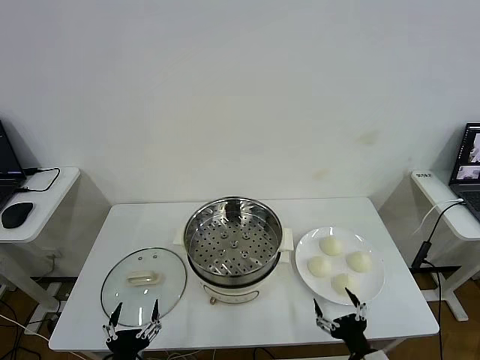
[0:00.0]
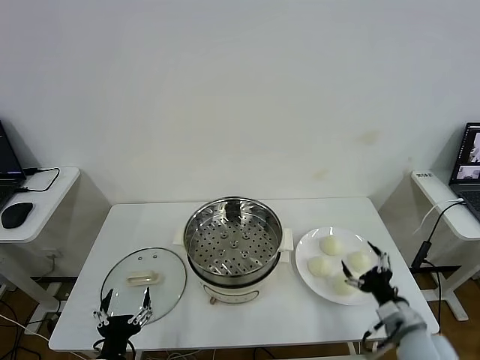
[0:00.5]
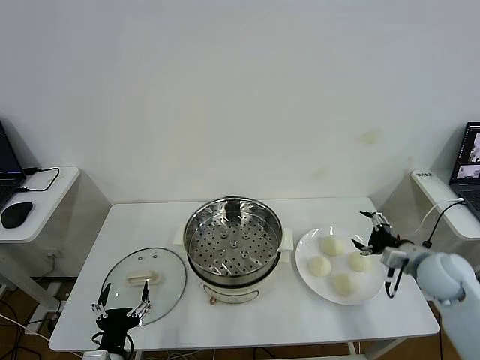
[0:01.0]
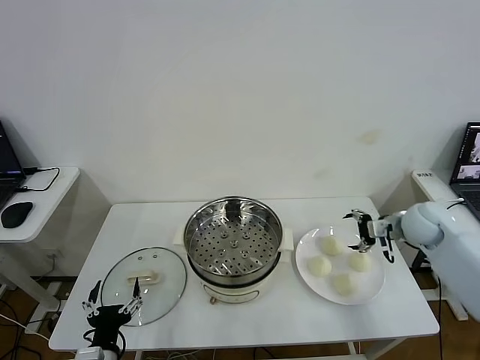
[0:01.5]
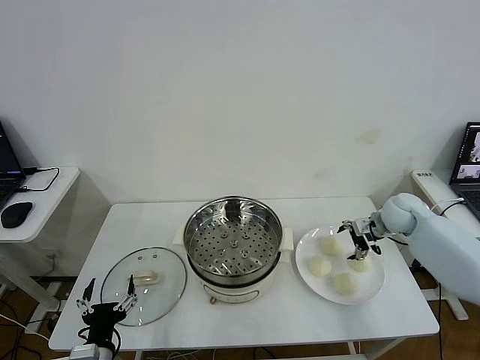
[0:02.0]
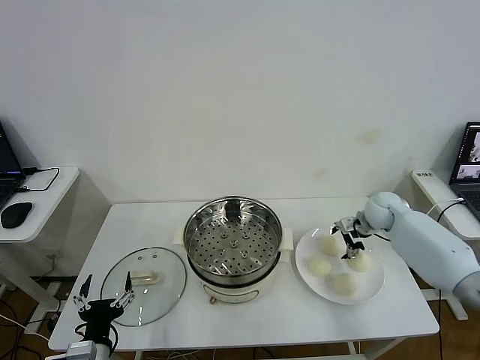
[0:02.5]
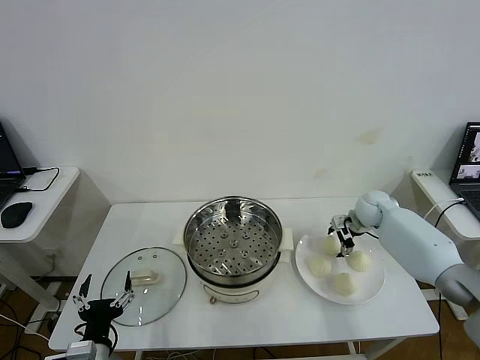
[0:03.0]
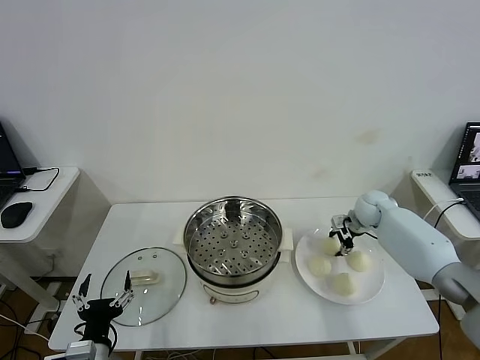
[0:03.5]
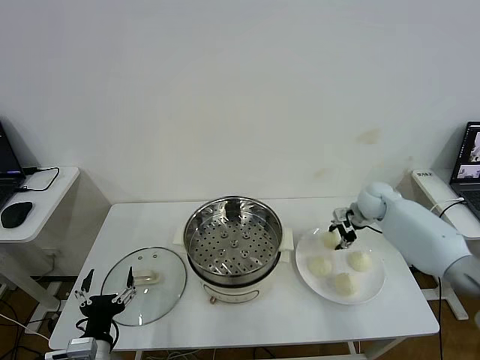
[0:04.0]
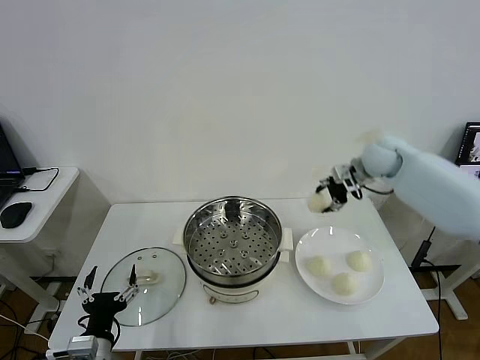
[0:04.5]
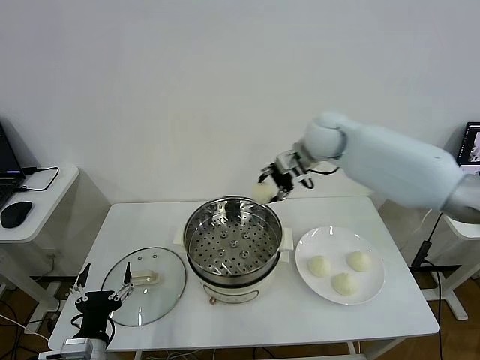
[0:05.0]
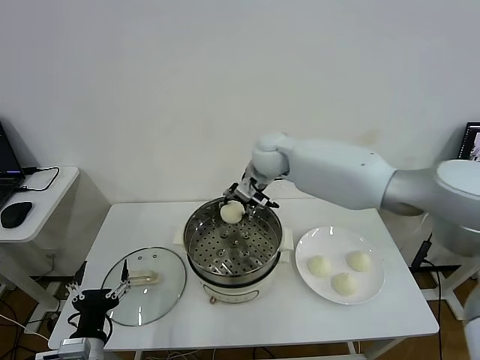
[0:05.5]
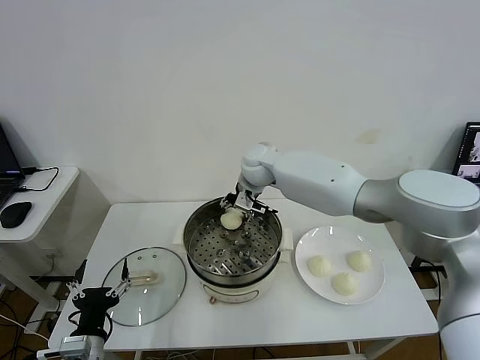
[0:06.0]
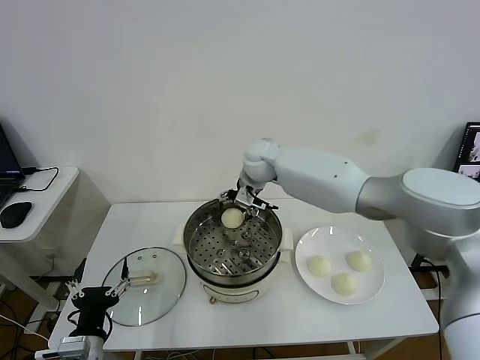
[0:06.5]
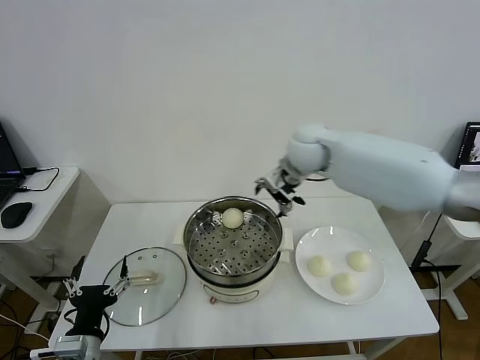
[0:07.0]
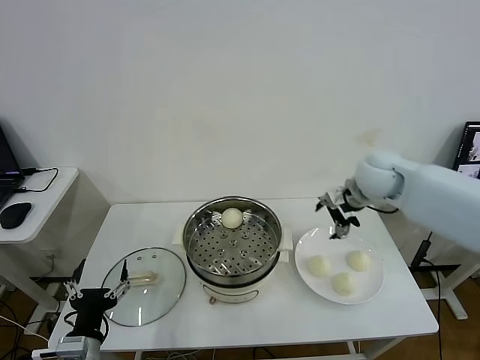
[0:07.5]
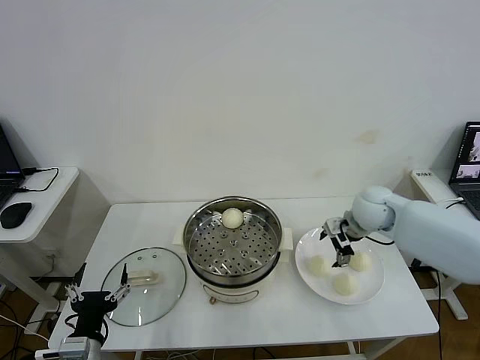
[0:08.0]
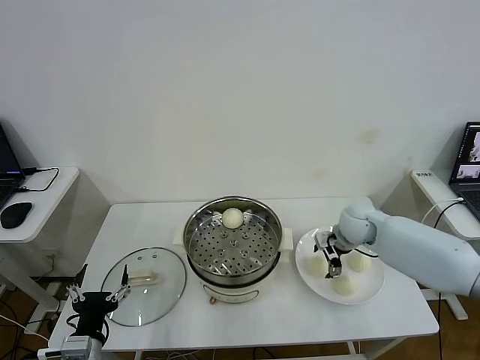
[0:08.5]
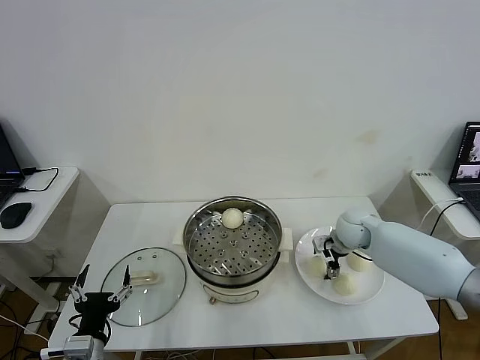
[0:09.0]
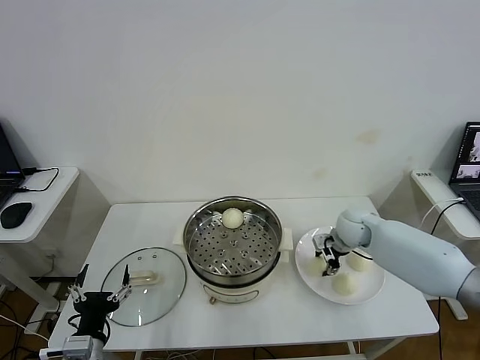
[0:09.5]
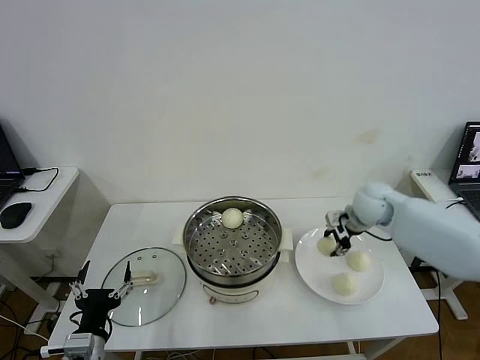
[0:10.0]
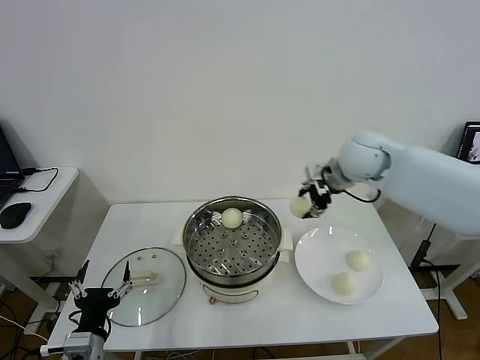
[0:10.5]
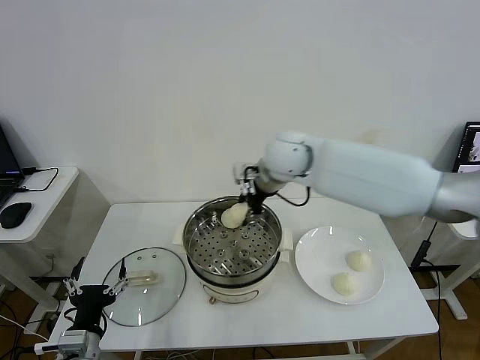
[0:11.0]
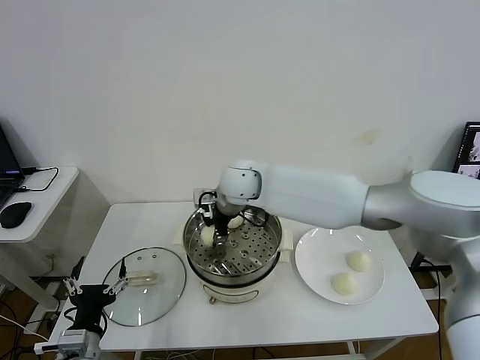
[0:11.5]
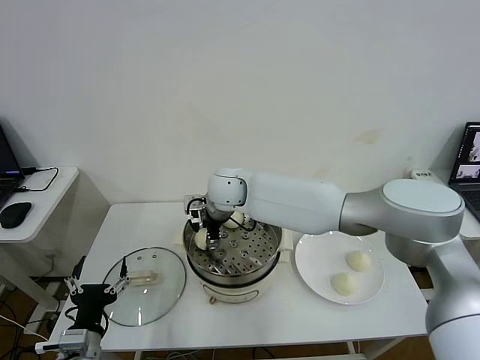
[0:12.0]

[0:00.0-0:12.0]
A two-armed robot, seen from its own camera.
Step, 0.0 to 3.0 s: Grasp the baozi in the plate with right gripper.
Step, 3.5 to 6.0 s: Place the baozi on the steamer with right gripper.
Step, 6.5 to 9.0 s: Grasp the baozi in the plate with right gripper.
2.0 to 4.0 s: The right gripper changes place by some 5 cm, and closes.
4.0 to 6.0 s: The right gripper travels to the left by roughly 30 cm.
6.0 to 8.0 s: The right gripper goes some 25 cm to the right, and opens up.
8.0 to 10.0 s: The right gripper goes downward and returns, roughly 5 cm each way, and closes up.
10.0 to 12.0 s: The right gripper shifts some 35 cm to the left, and opens.

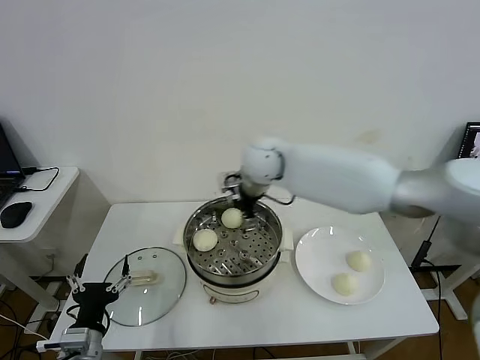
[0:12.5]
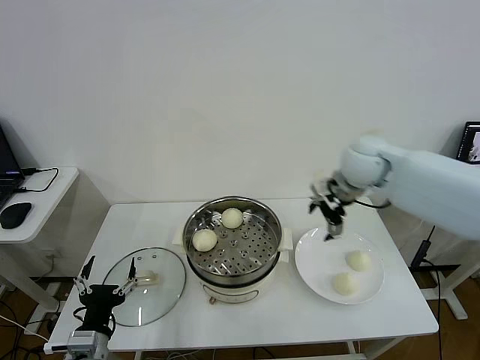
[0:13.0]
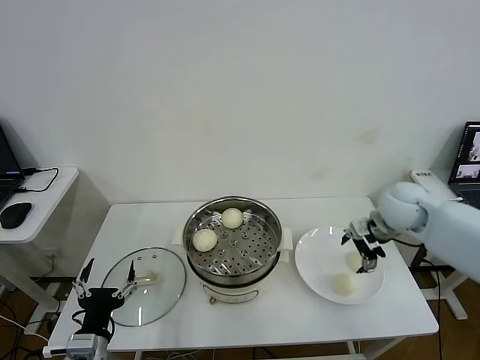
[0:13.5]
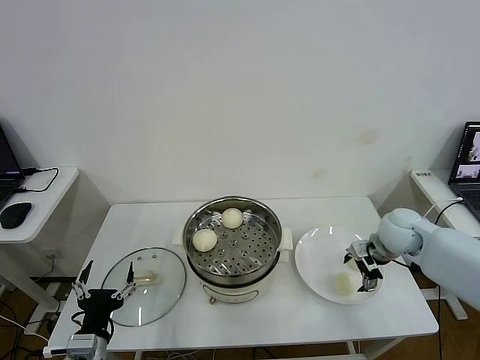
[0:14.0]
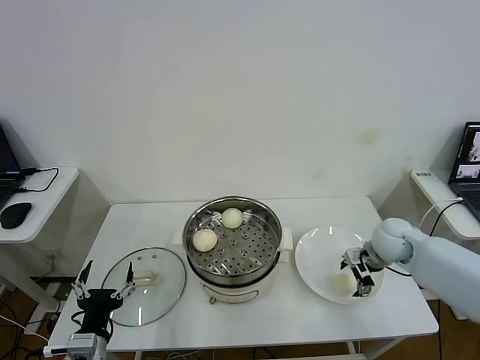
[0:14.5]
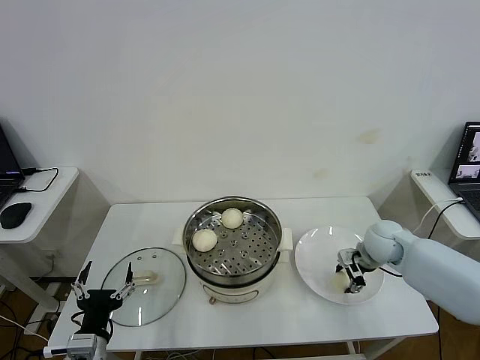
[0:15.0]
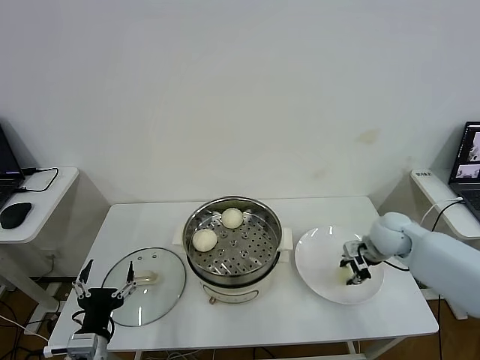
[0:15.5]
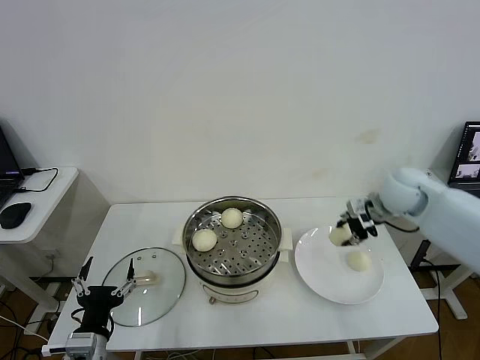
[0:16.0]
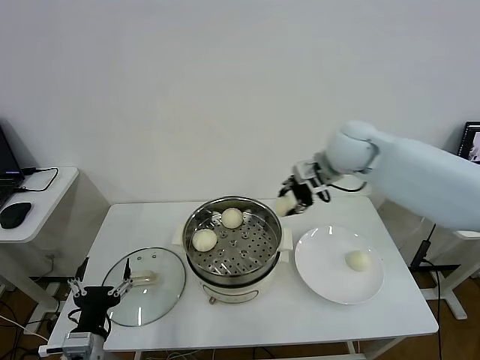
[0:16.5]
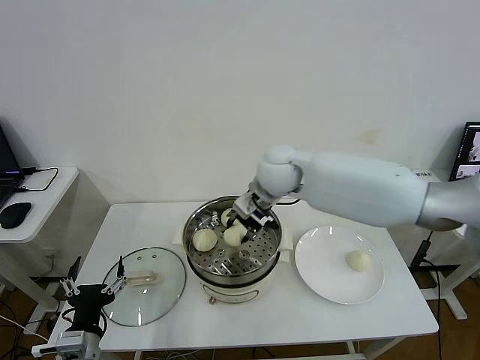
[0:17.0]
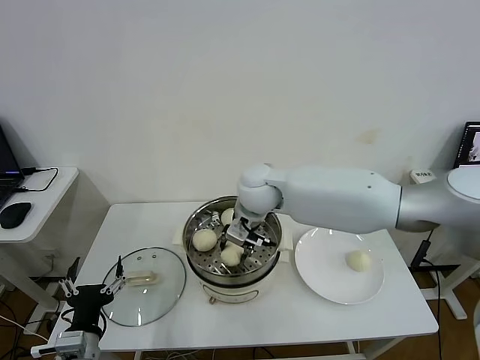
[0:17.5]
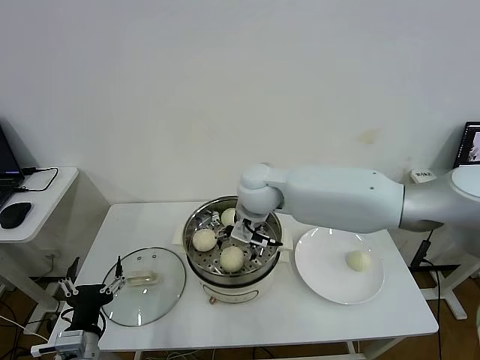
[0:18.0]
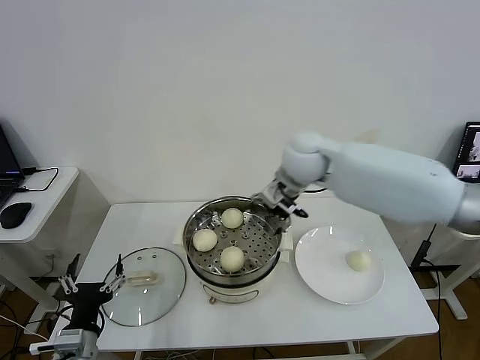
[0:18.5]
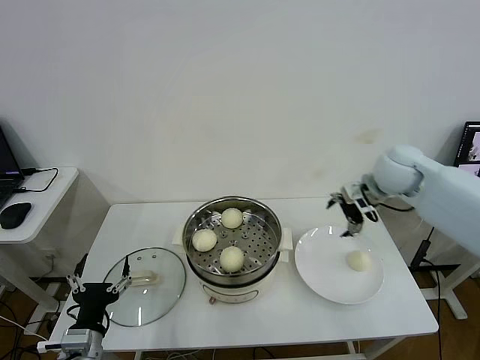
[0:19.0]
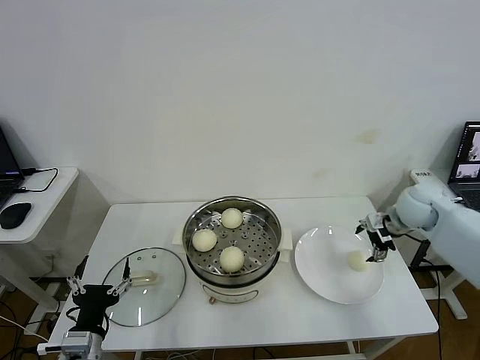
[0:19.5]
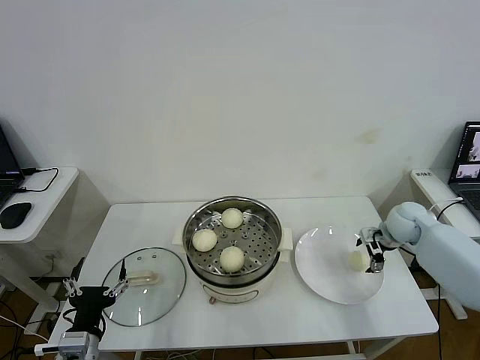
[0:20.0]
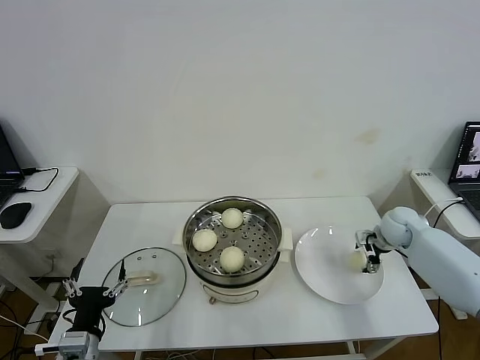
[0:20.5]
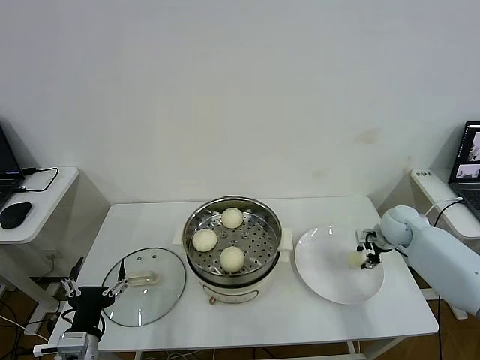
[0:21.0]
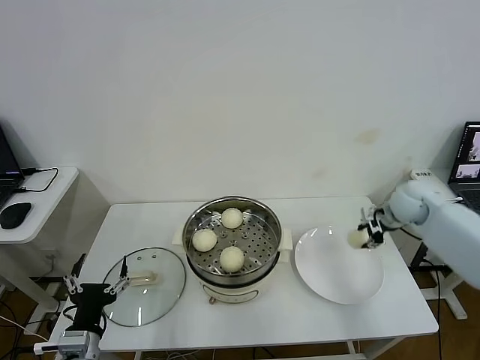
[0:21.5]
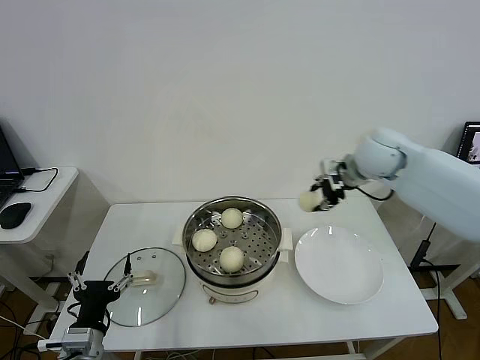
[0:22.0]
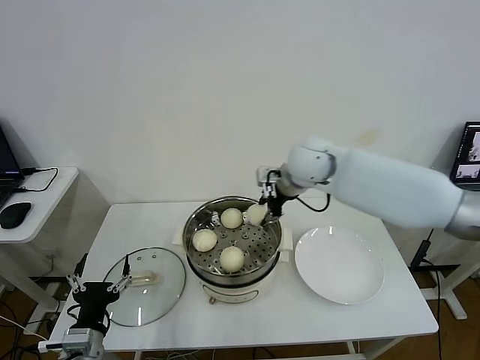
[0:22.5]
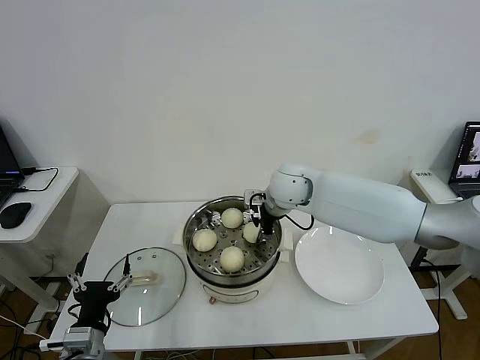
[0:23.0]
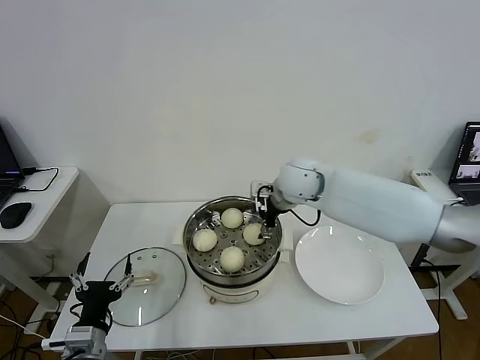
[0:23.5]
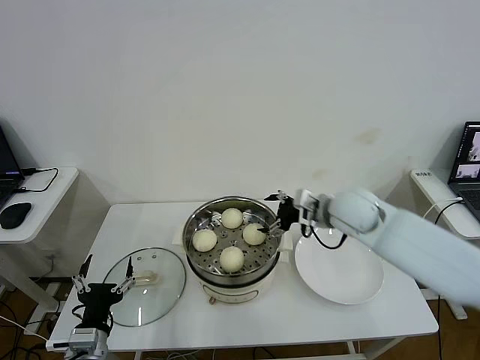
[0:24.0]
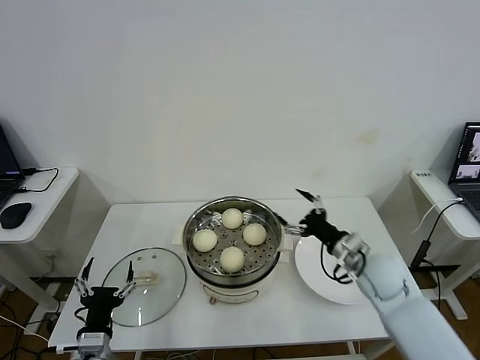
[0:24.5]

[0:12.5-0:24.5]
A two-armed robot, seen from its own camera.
Step, 12.5 to 15.0 s: Grasp the baozi in the plate with right gripper.
Step, 15.5 to 17.5 s: Place the baozi on the steamer with right gripper.
Step, 18.0 to 20.5 s: Grasp the baozi in the plate with right gripper.
Step, 21.0 to 23.0 s: Place the baozi on the steamer with right gripper.
12.5 to 14.5 s: The right gripper moves to the right and downward, some 35 cm.
14.5 to 16.5 s: The right gripper is displaced upward and to the left by some 25 cm, and closes its fingers.
16.5 to 18.5 s: The right gripper goes to the left and returns, approximately 15 cm each way, and opens its fingers.
18.5 to 20.5 s: The right gripper is displaced to the right and downward by roughly 35 cm.
20.5 to 22.5 s: The right gripper travels to the left and upward by about 35 cm, and closes.
22.5 to 24.5 s: The right gripper is displaced downward, to the right and backward by roughly 30 cm, and opens its fingers.

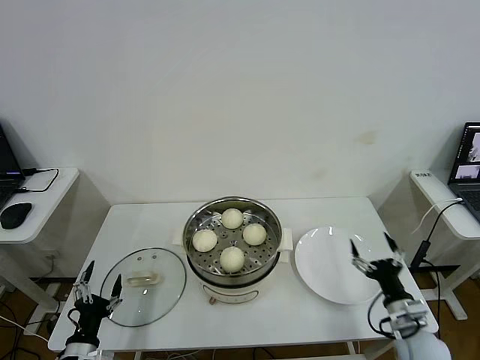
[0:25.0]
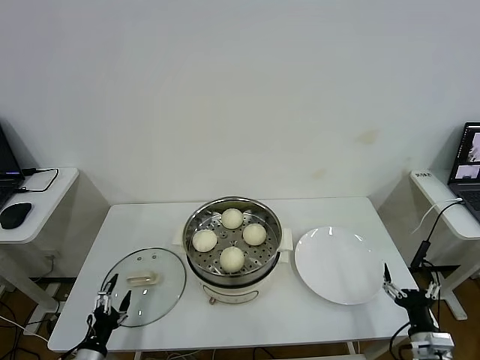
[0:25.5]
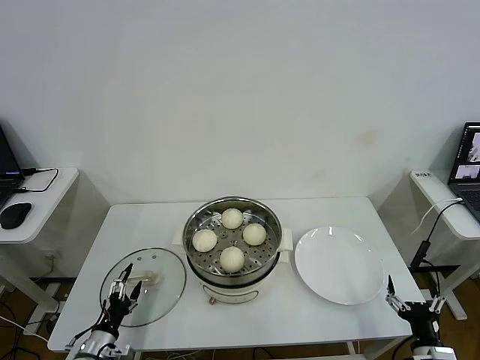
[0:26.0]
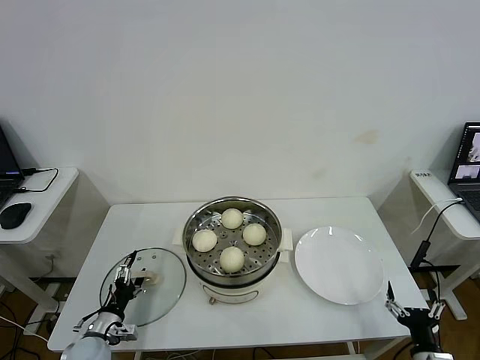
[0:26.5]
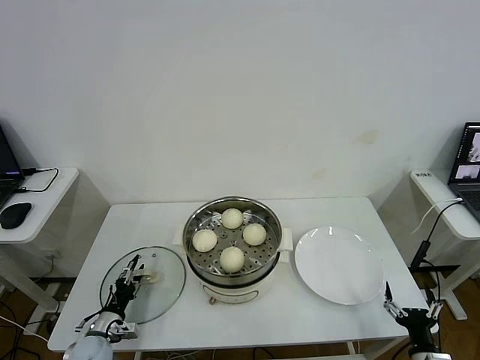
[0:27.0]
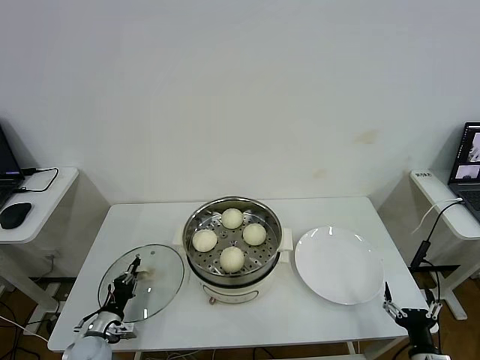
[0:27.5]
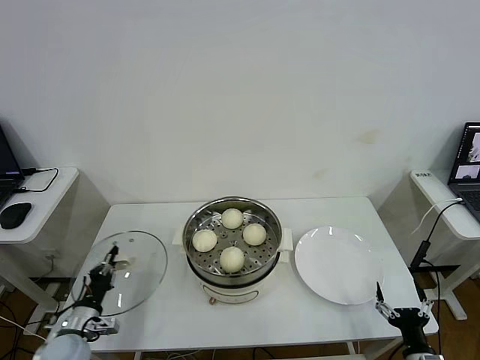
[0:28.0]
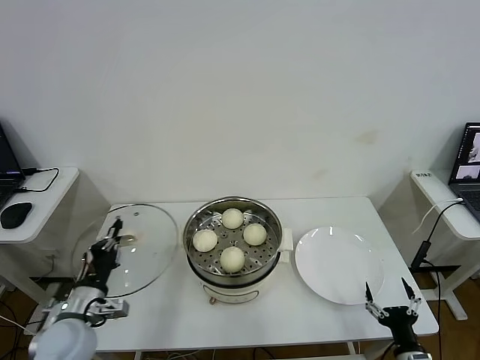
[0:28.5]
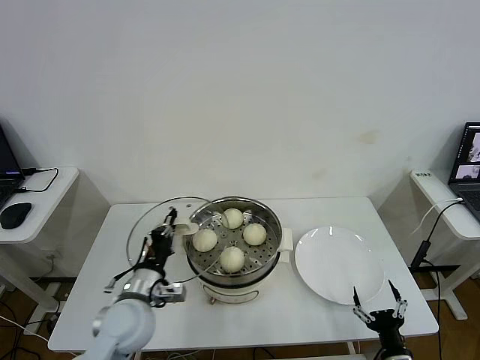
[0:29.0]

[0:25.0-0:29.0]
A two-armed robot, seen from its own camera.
Step, 25.0 to 27.5 s: Grasp the pot lid with left gripper.
25.0 to 27.0 s: The right gripper heads backward and downward, covering about 10 cm. The left gripper is displaced forward and downward by about 10 cm.
27.0 to 29.0 s: The left gripper goes some 25 cm upward and to the right, and closes its fingers.
